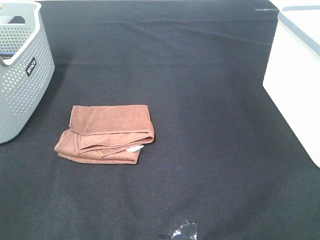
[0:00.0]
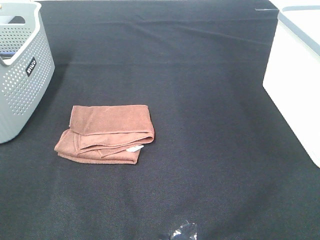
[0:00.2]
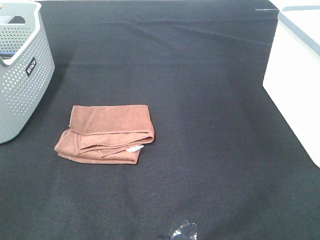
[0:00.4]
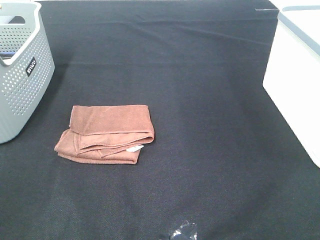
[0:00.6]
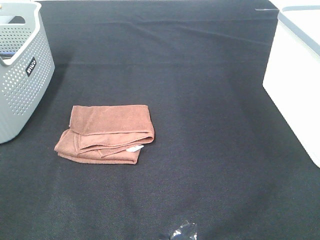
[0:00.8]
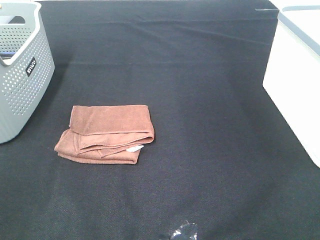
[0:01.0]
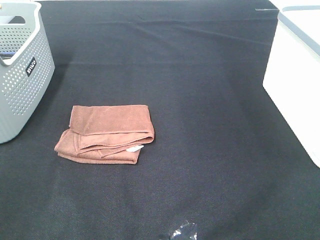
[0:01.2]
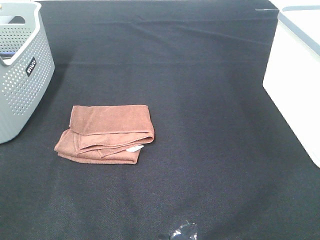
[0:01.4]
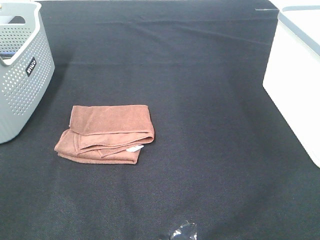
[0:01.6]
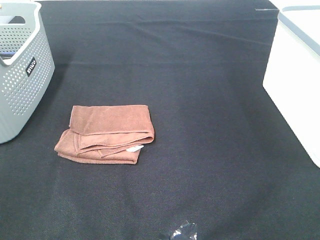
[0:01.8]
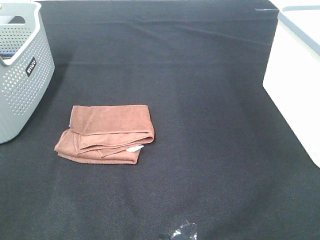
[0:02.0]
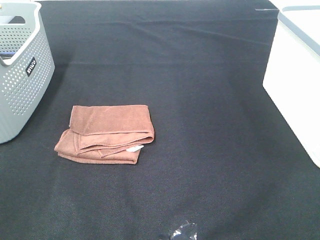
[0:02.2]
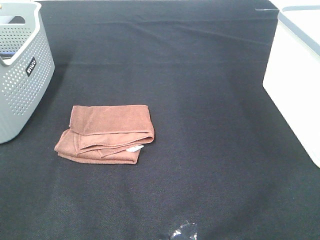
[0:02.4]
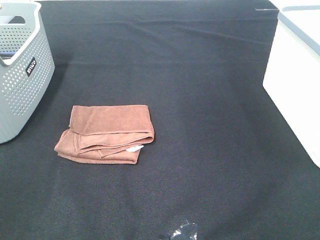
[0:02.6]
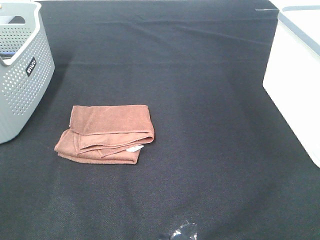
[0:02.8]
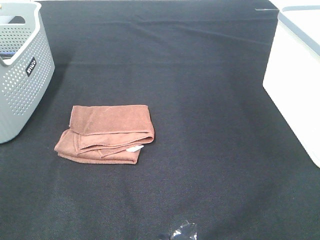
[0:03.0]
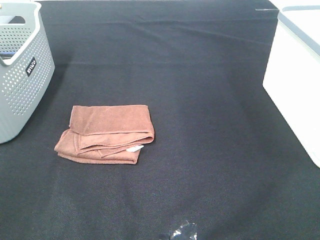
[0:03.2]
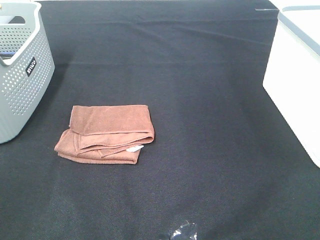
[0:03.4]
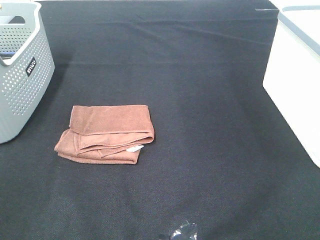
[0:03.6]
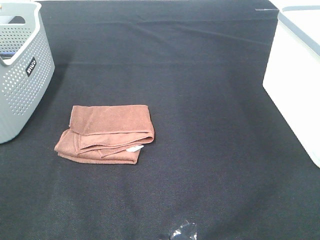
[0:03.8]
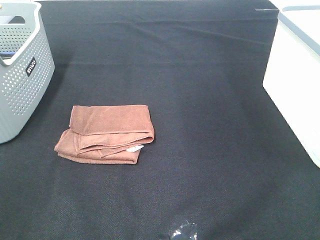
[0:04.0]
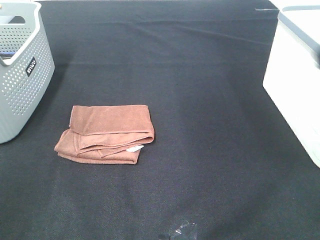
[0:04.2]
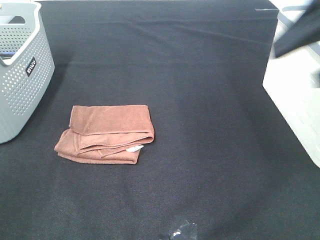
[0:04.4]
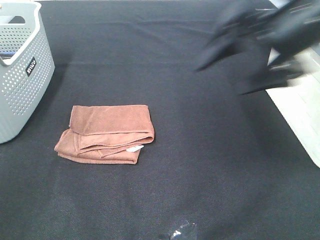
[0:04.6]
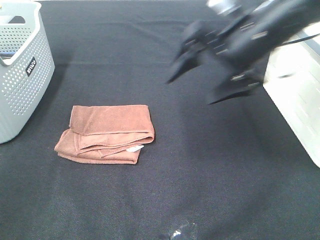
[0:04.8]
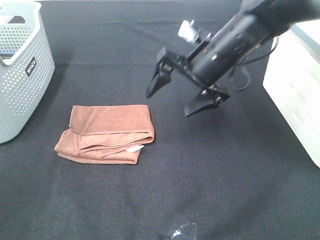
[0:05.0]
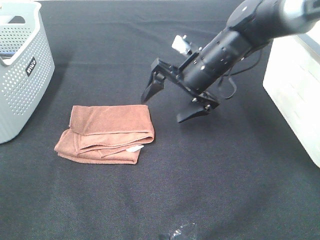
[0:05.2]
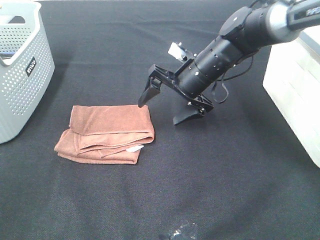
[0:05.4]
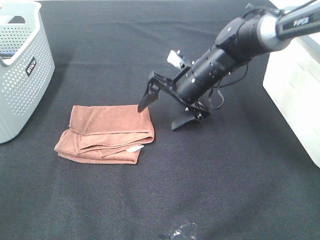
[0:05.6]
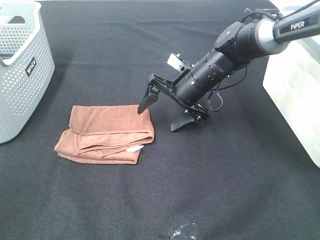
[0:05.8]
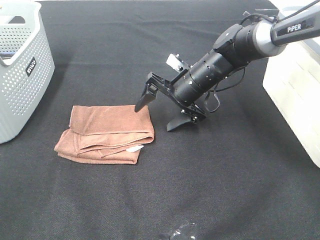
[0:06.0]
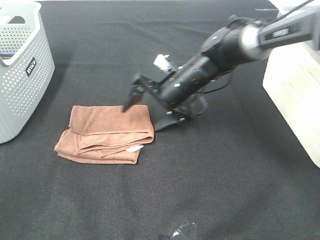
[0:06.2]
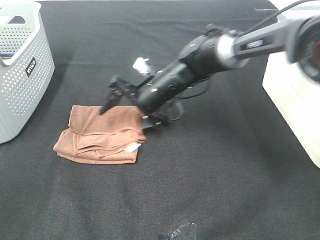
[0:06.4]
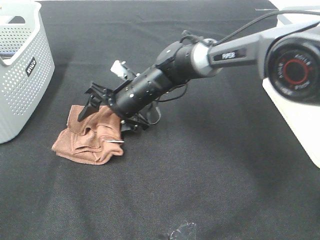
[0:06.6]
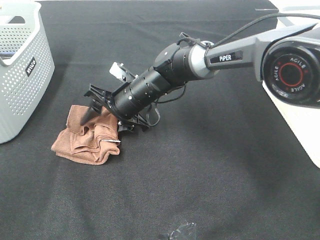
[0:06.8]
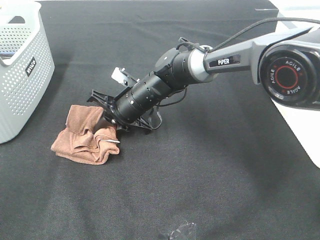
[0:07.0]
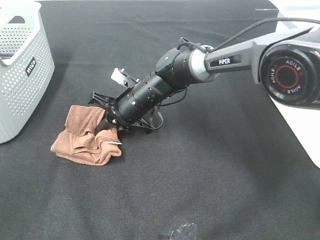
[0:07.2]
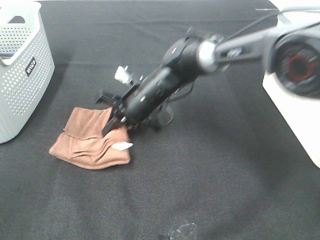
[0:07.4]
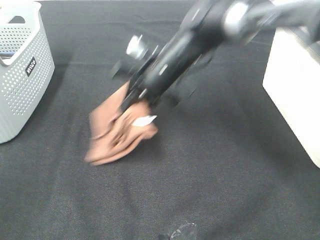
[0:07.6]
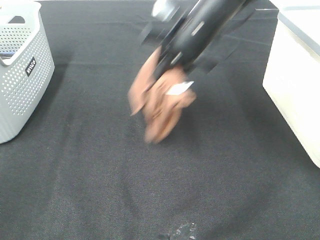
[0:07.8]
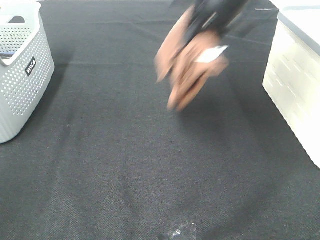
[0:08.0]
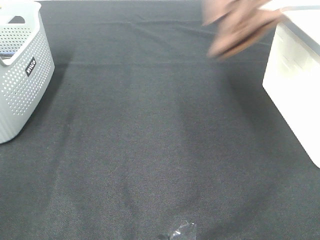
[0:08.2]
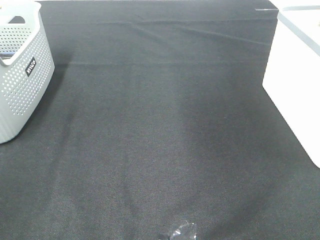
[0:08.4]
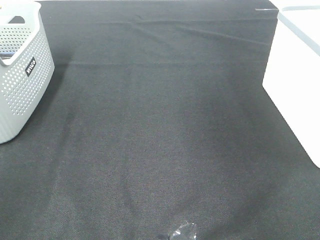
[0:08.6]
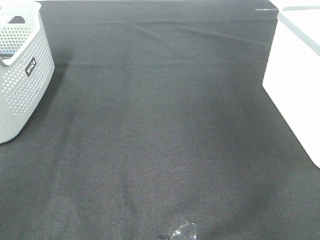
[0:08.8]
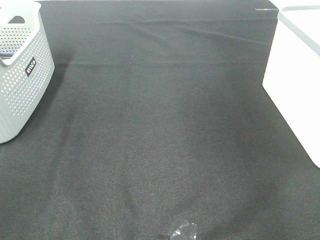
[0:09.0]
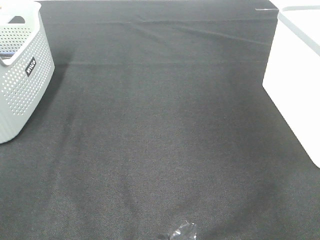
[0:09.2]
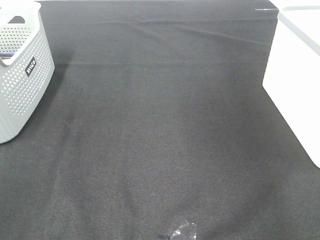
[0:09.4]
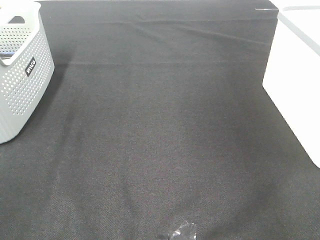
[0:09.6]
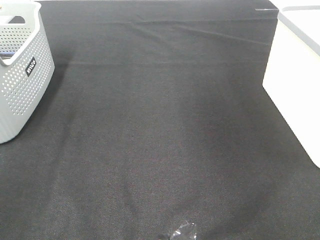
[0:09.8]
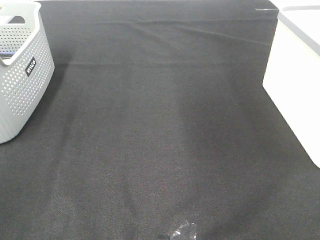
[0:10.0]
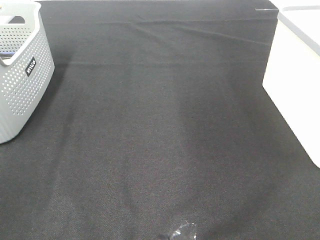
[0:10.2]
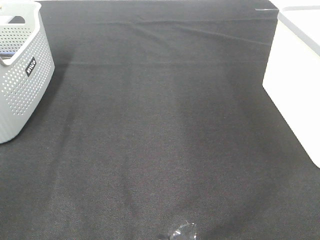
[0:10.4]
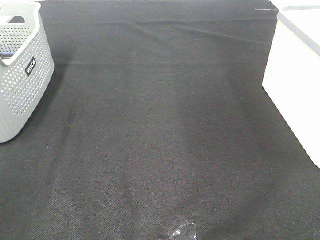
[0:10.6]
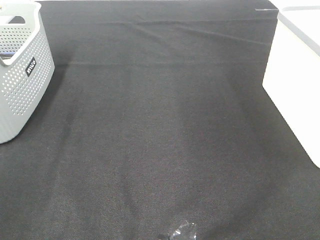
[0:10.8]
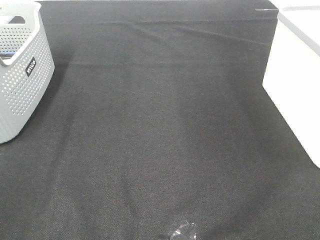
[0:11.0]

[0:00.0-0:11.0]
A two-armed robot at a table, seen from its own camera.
Step, 0:00.0 to 0:07.2: Right hand: grab the folded brown towel.
Step, 0:07.4 to 0:09.4: Right hand: place the brown towel in right basket.
0:00.0 to 0:03.2: The two grippers keep their place.
0:03.2 to 0:04.8: The right gripper moves forward and to the left, roughly 35 cm.
0:04.8 to 0:06.2: The right gripper shifts some 20 cm downward, to the left and forward.
0:06.2 to 0:07.8: The right gripper is displaced upward by some 15 cm, and closes.
0:07.8 to 0:09.4: The right gripper travels to the right by approximately 30 cm, and opens.

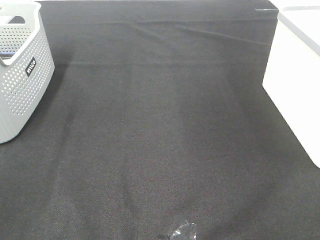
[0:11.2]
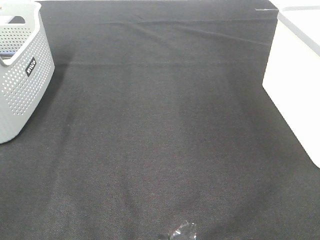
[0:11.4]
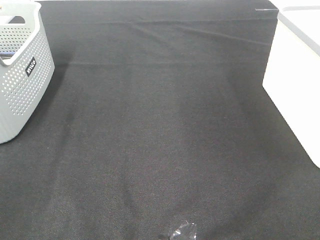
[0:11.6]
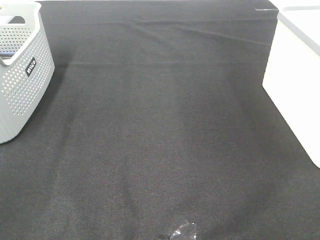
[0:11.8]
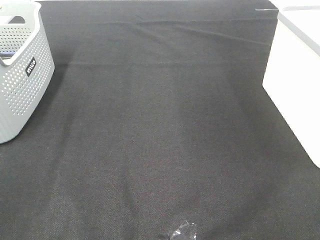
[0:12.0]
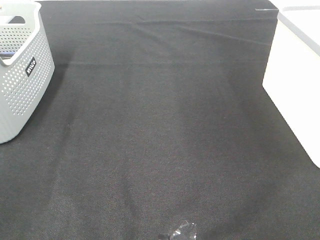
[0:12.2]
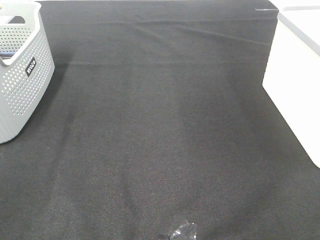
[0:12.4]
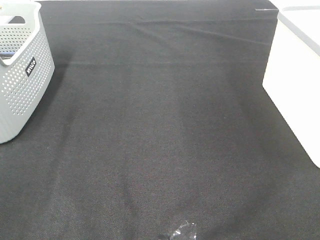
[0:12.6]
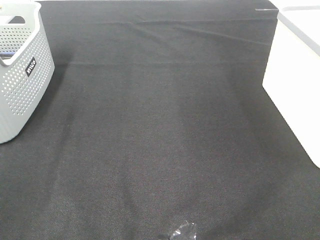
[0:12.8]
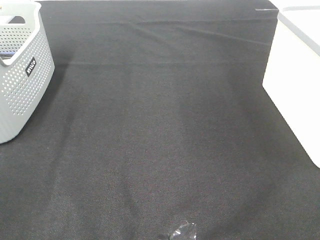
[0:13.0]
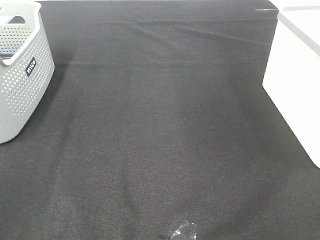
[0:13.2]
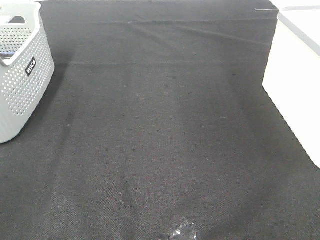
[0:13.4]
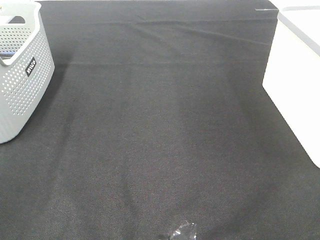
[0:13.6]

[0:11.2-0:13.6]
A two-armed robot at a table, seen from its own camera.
0:12.4 to 0:13.6: Both grippers stay about where they are.
